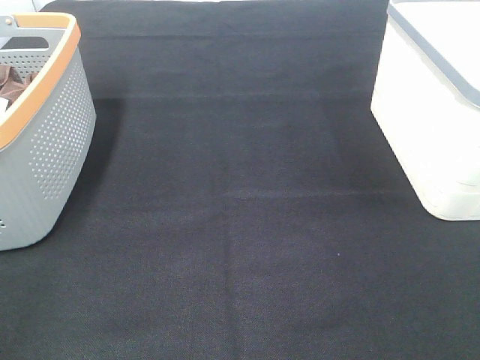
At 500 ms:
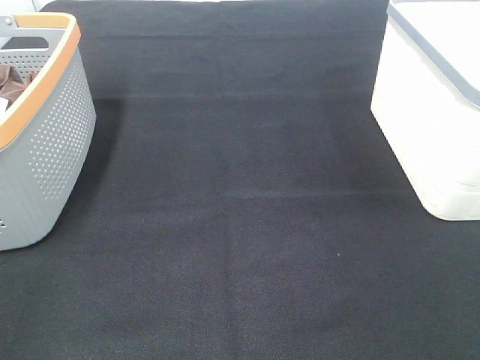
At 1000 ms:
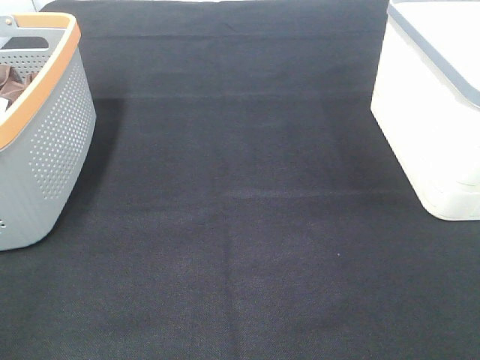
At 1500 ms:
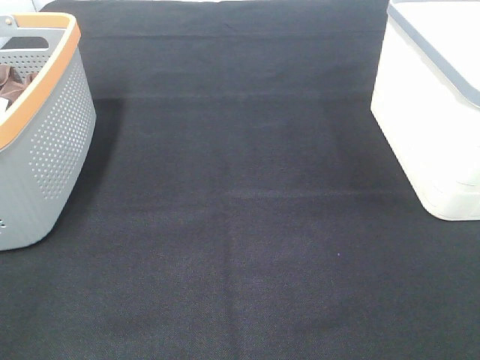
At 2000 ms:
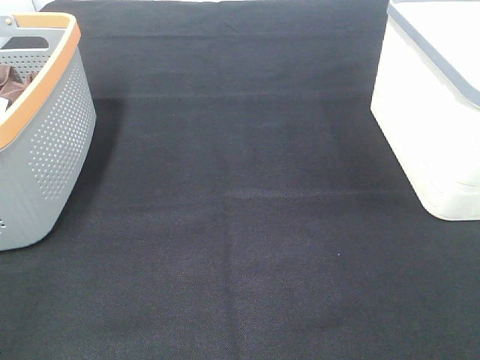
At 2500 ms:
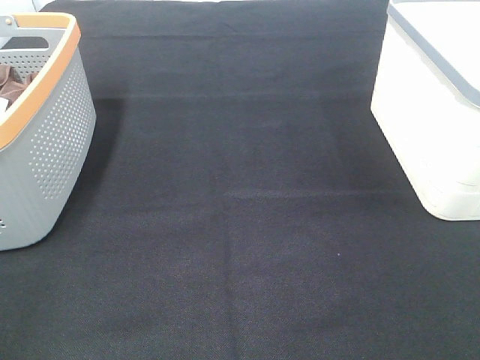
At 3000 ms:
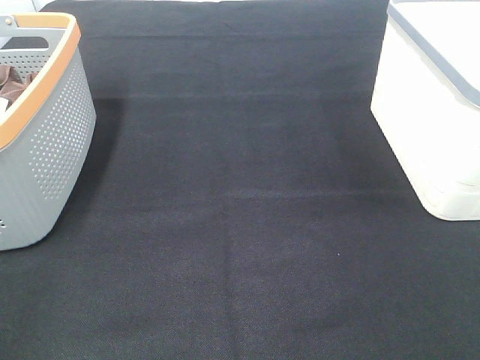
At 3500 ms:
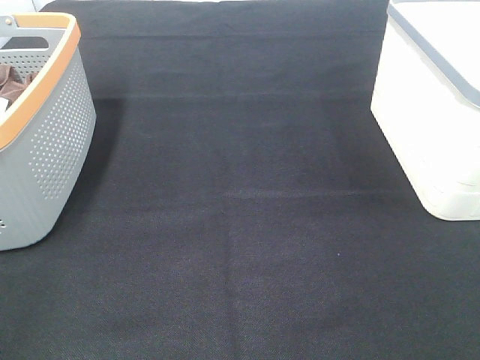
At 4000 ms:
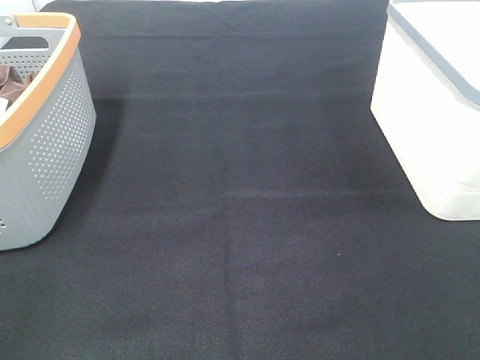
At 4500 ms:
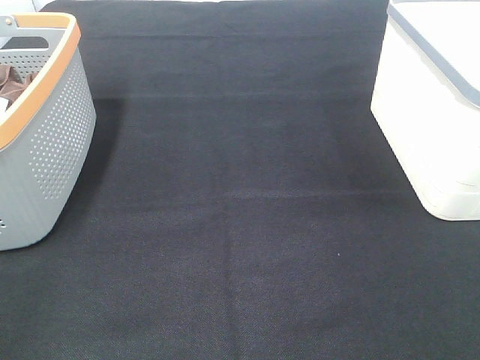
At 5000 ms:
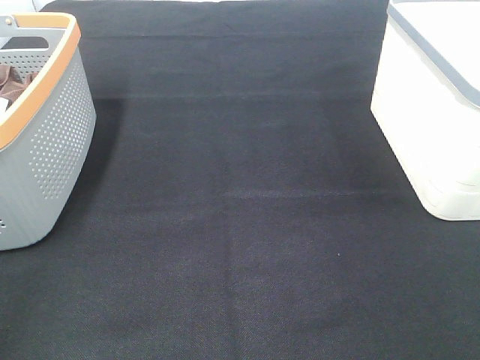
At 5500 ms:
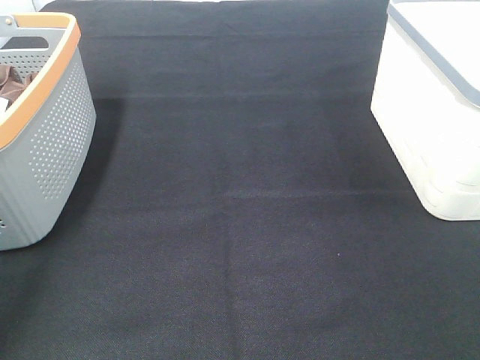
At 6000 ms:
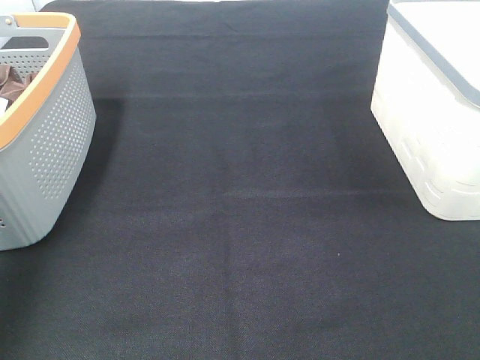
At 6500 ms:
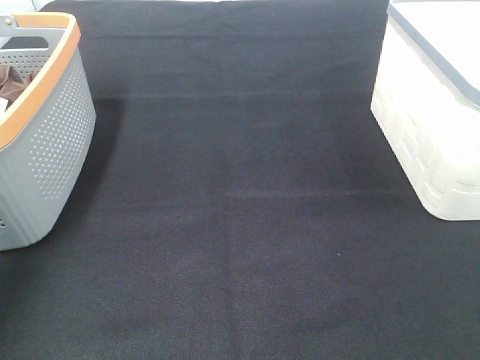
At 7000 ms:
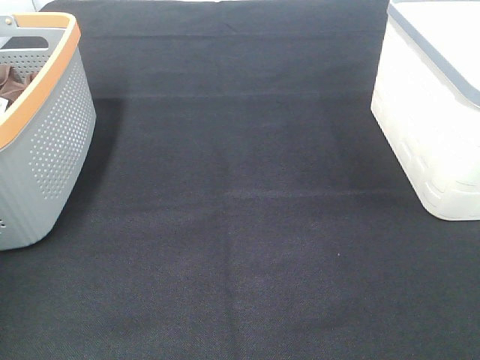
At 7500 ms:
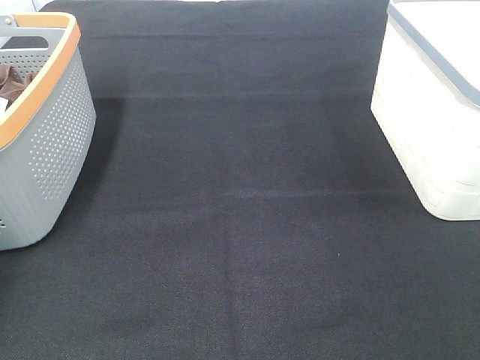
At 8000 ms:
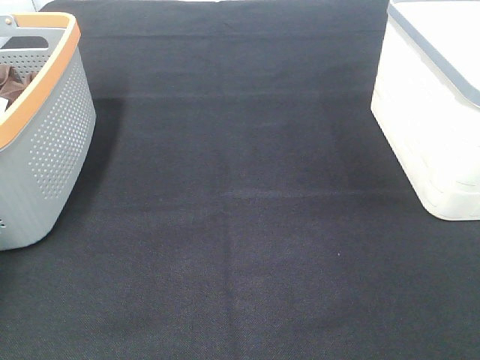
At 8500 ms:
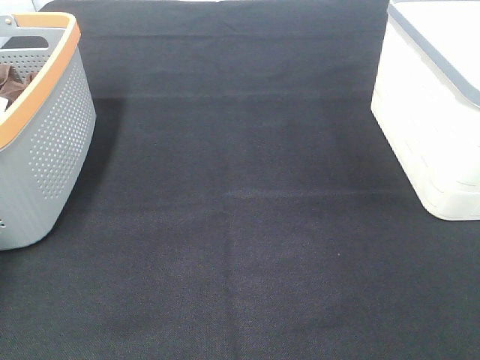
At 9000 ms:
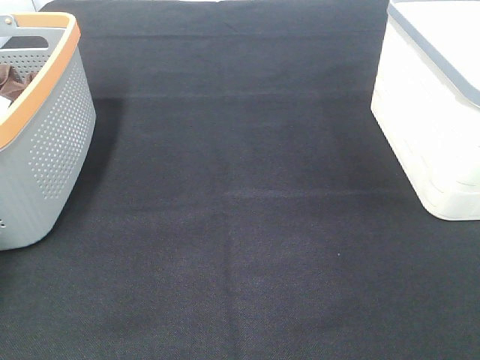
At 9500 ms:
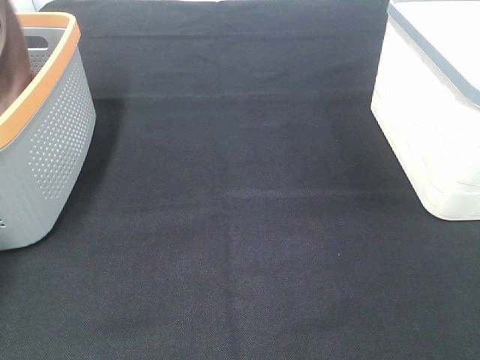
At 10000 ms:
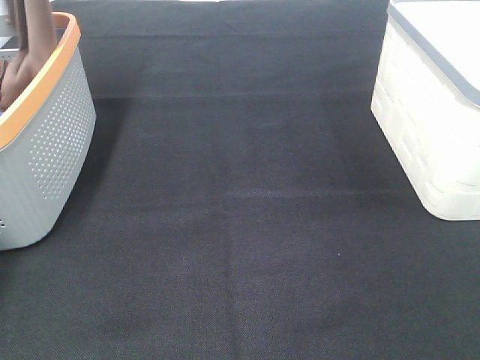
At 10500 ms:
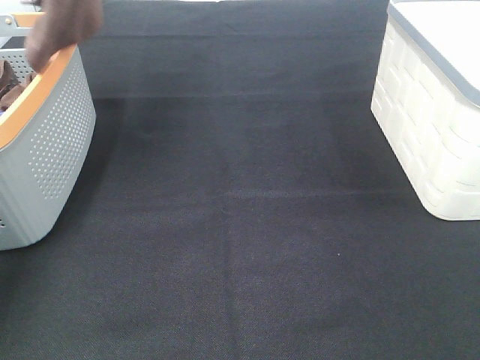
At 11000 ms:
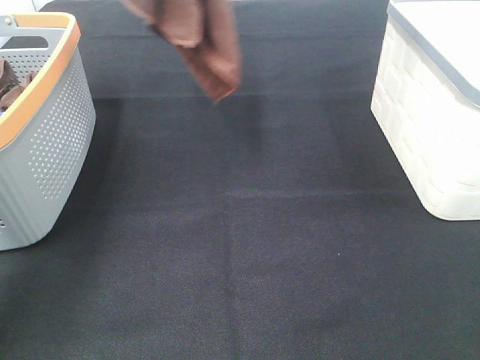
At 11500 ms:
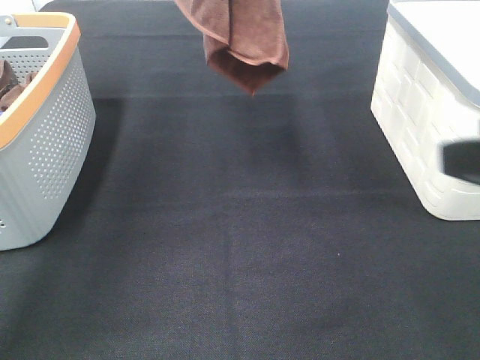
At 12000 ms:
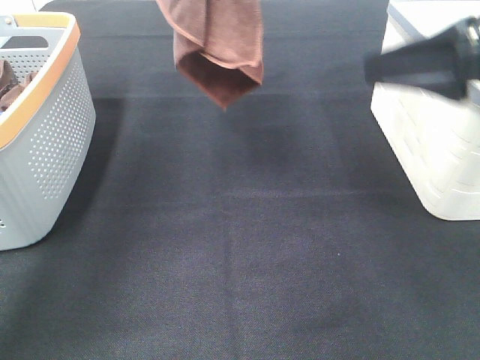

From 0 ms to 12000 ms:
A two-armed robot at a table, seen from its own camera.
Task of the whole recording: Remove the towel and place it.
From 0 ms to 4000 ms: The two grippers keep their place.
From 4000 ms to 6000 ms: The left gripper is displaced forward by some 30 cm.
From 6000 ms to 8000 ms: The left gripper shifts approximately 25 cm forward, downward and to the left.
From 8000 ms to 10000 ms: The left gripper goes some 25 cm upward, and closes its fingers.
From 10000 ms to 12000 ms: The right gripper moves forward, about 25 cm. Meanwhile the left gripper is displaced to the right by about 25 cm.

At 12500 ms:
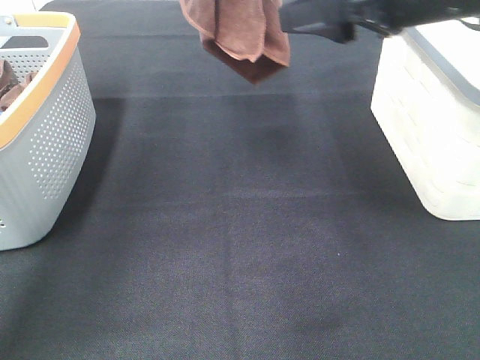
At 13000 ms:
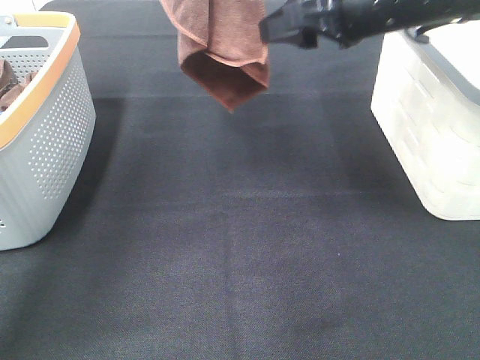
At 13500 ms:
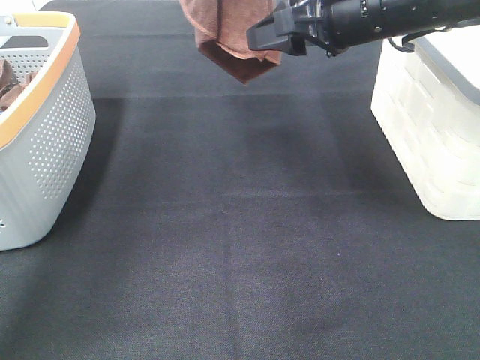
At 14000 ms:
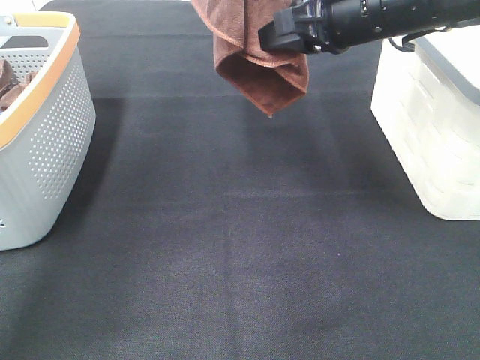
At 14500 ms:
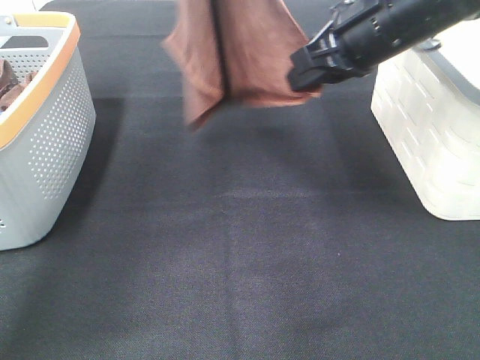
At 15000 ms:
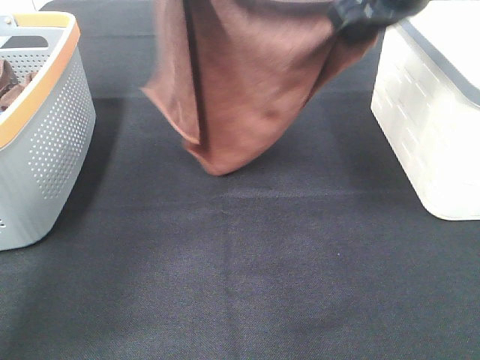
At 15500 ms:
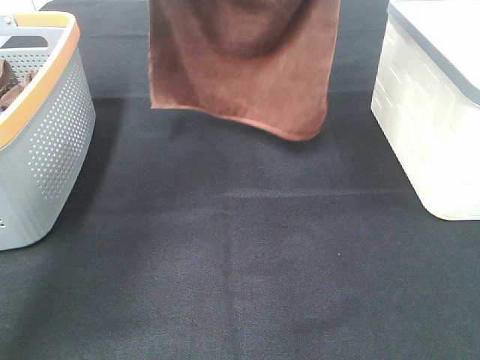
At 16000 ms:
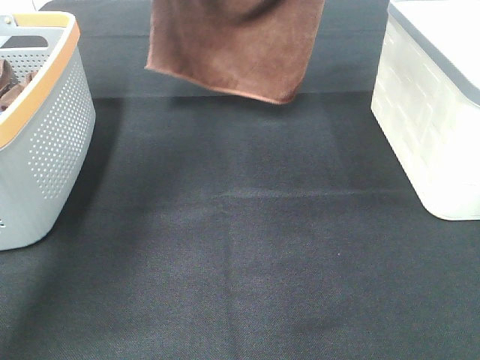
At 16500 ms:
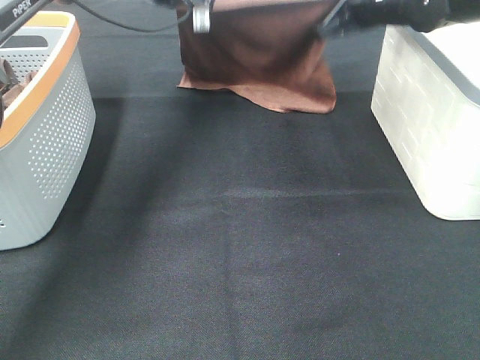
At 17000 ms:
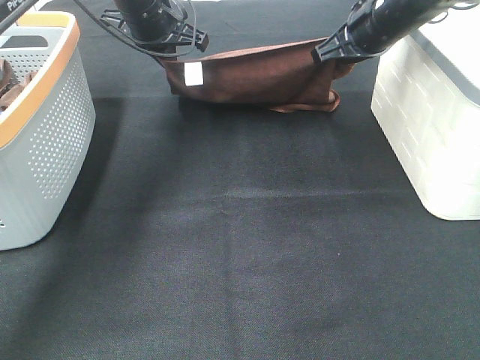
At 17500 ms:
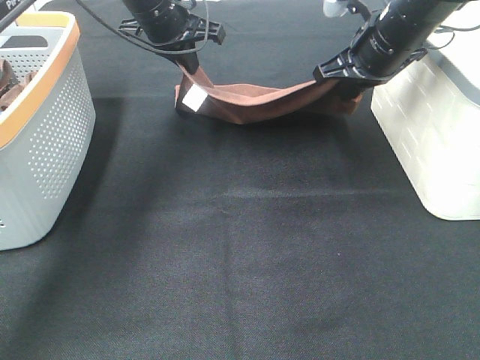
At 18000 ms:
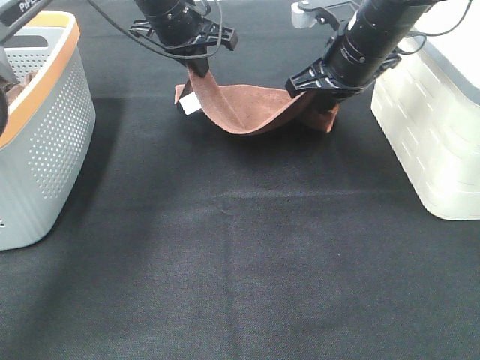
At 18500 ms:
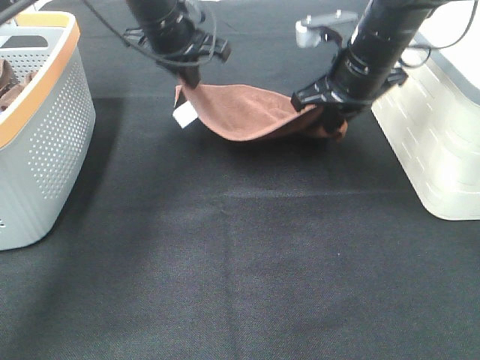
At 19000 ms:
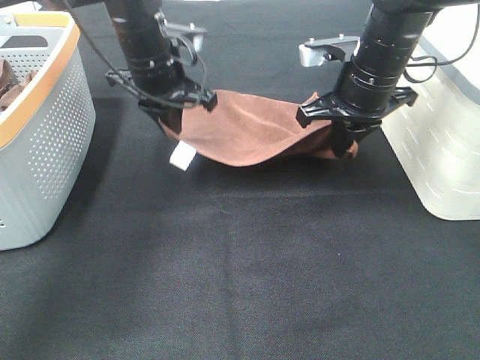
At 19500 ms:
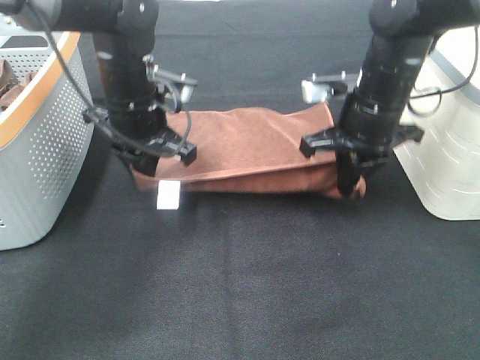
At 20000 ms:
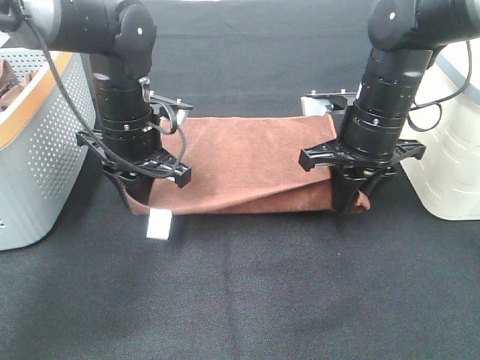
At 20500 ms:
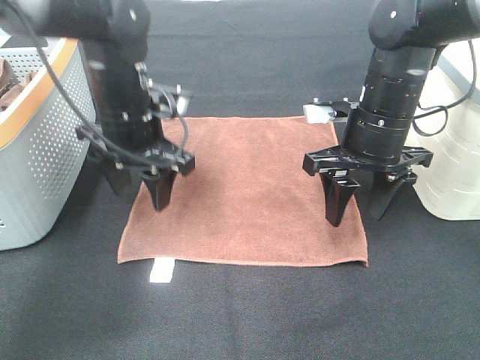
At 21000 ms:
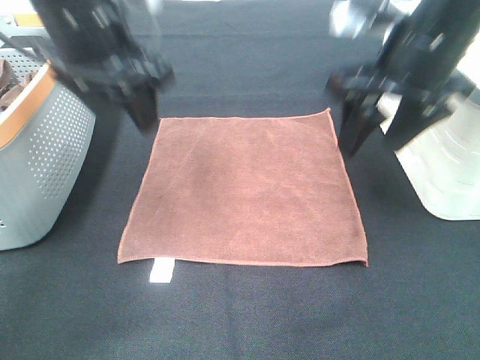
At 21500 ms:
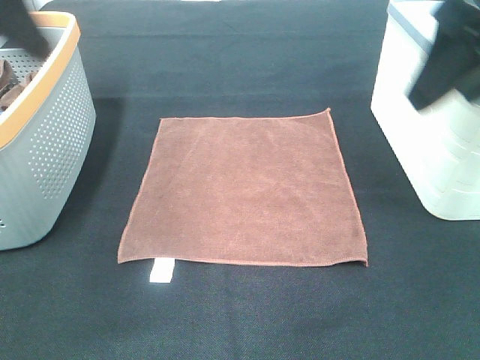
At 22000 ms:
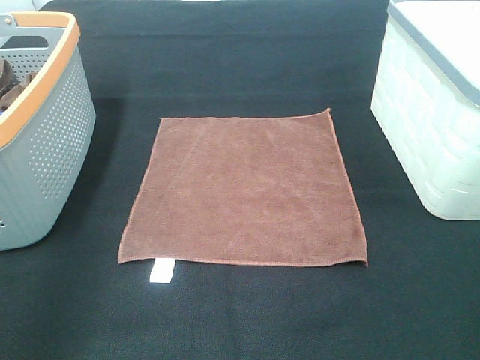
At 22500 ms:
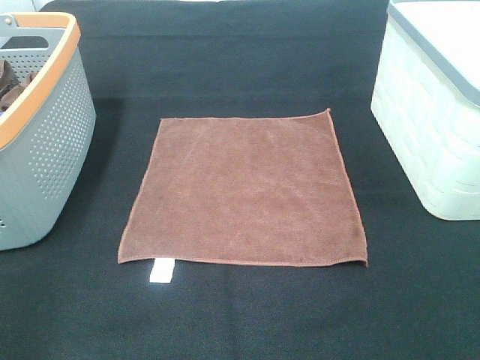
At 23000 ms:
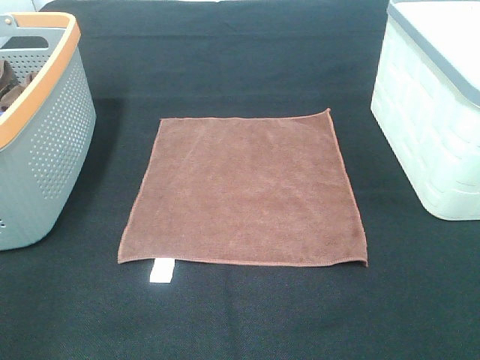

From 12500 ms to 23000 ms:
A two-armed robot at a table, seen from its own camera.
Task of the whole recording: Remove the towel and place it.
Step, from 12500 ms to 16000 ms: Left hand: spread the brown towel flat on the table.
Step, from 12500 ms to 16000 ms: Right hand: spread the brown towel flat on the table.
From 12500 ms to 14500 ms: The right gripper shifts by about 5 cm, and closes its fingers.
From 14500 ms to 16500 ms: The right gripper moves forward, approximately 15 cm. The left gripper shifts about 25 cm downward and forward.
From 16500 ms to 19000 ms: The left gripper is displaced backward and downward by roughly 15 cm, while the right gripper heads backward, covering about 10 cm.
From 19000 ms to 21000 ms: The grippers both shift upward and backward by some 15 cm. The right gripper opens up. Meanwhile the left gripper opens.
From 21000 ms to 23000 ms: The right gripper is displaced backward and to the right by approximately 30 cm. Meanwhile the left gripper is displaced backward and to the left by approximately 35 cm.

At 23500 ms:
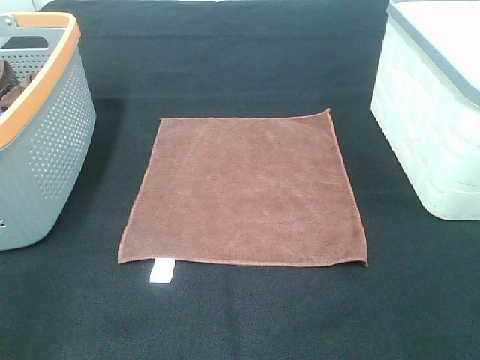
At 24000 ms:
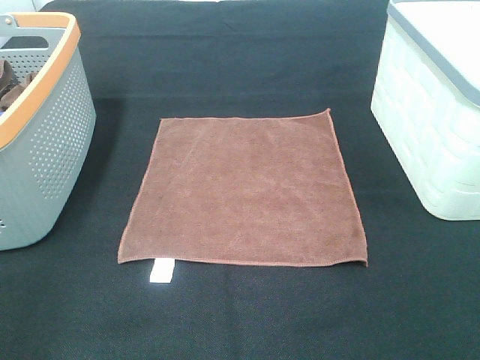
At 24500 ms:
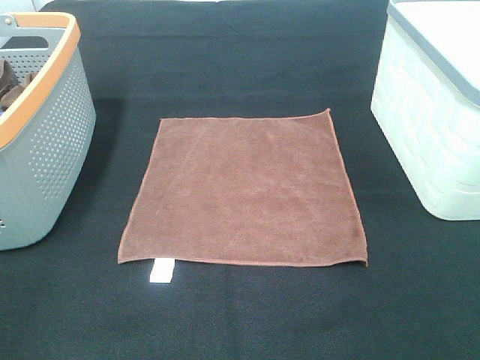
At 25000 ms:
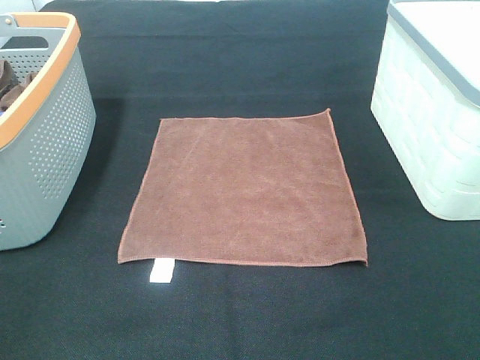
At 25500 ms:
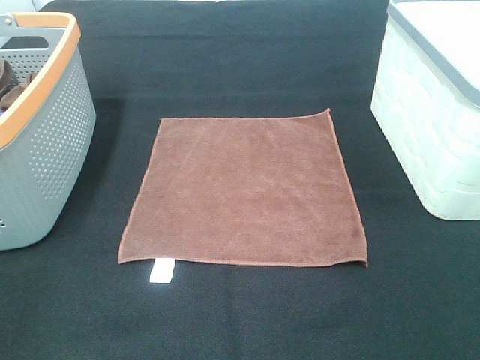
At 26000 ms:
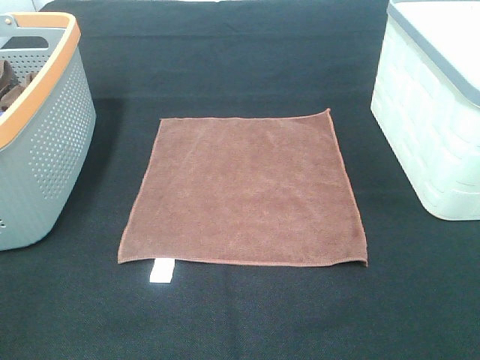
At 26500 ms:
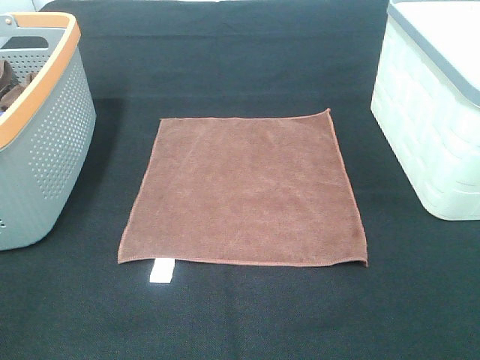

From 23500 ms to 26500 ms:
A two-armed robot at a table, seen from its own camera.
Task of the whole recording: Remove the towel and place it.
From 25000 ms to 26500 ms: The two grippers keep their place.
